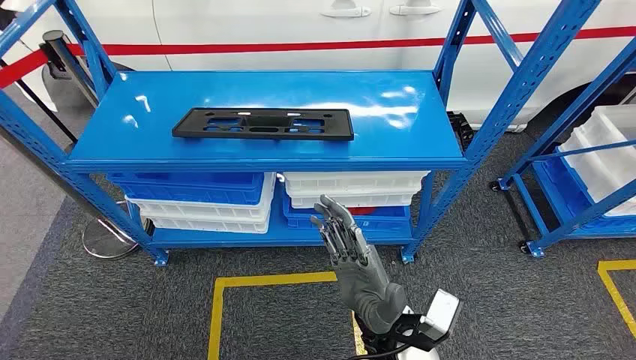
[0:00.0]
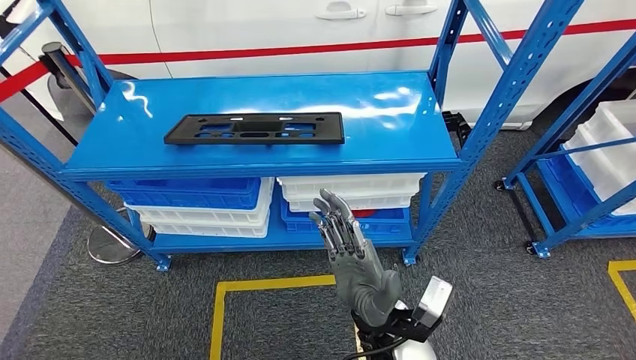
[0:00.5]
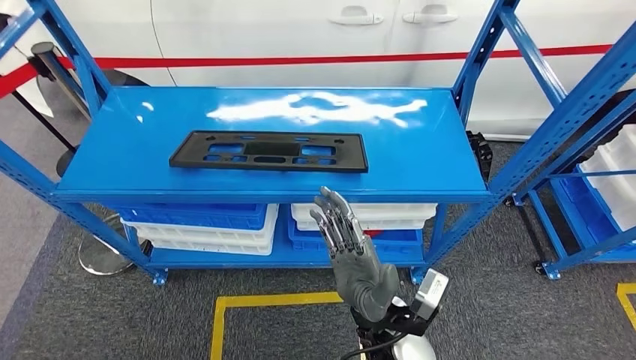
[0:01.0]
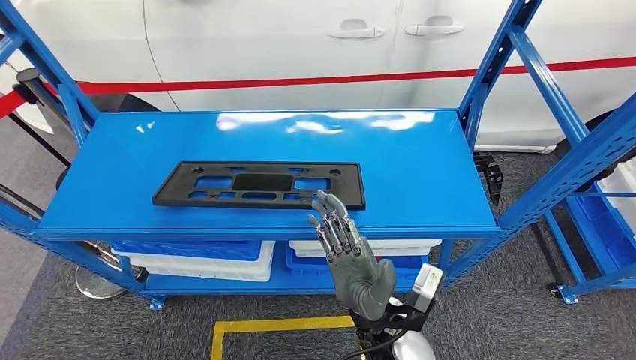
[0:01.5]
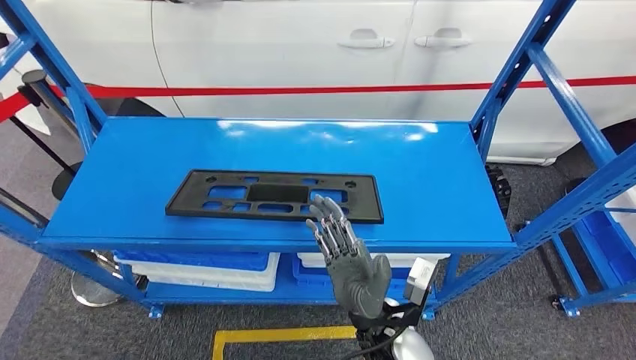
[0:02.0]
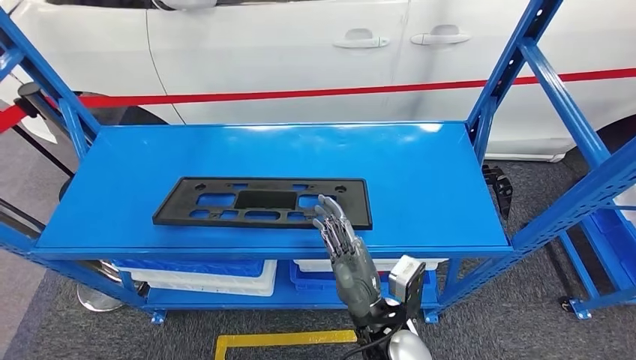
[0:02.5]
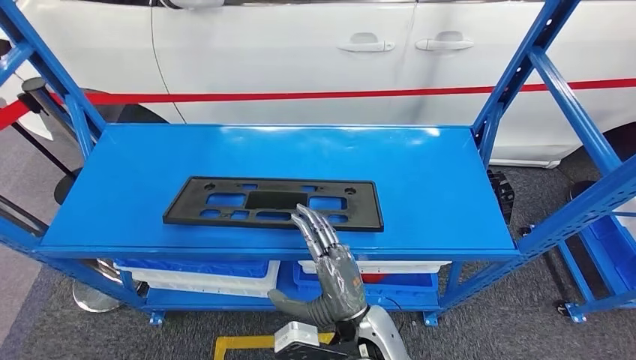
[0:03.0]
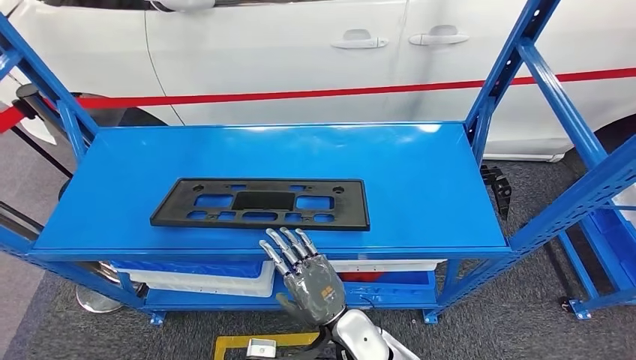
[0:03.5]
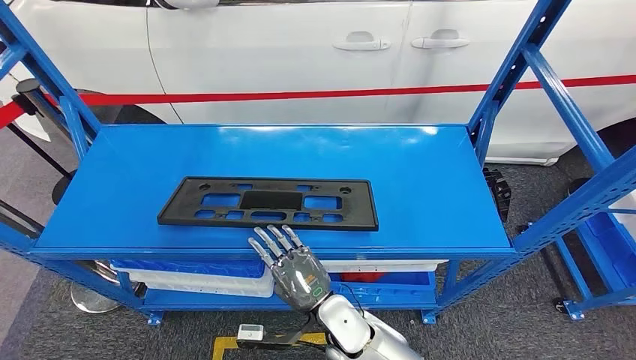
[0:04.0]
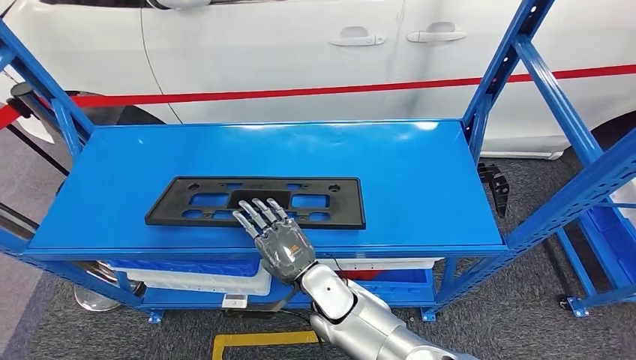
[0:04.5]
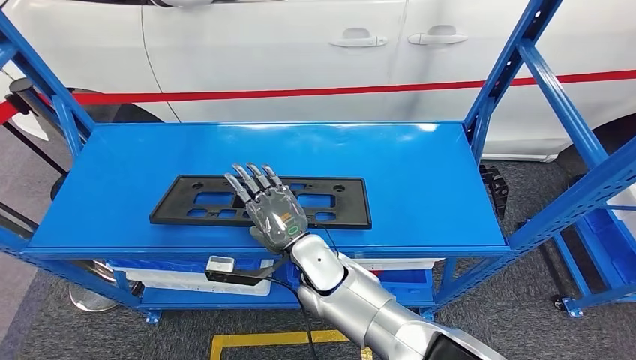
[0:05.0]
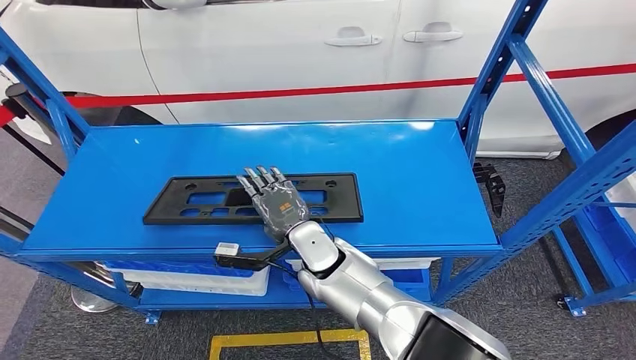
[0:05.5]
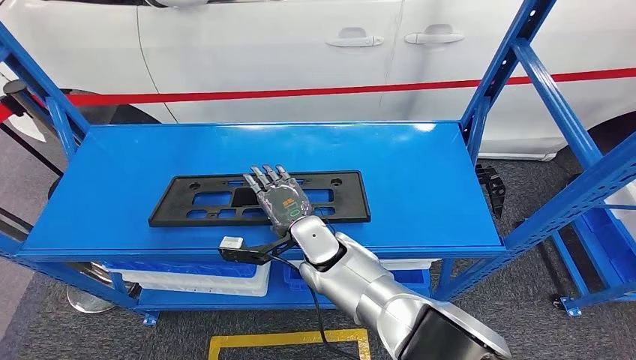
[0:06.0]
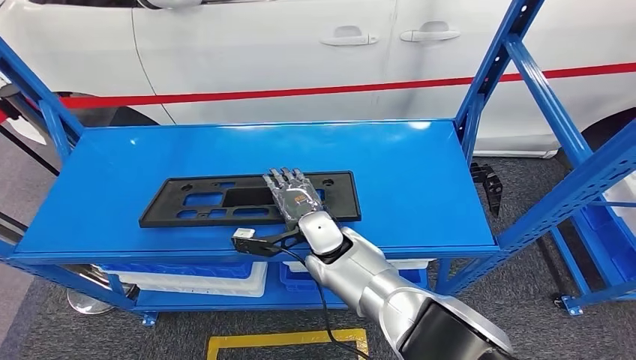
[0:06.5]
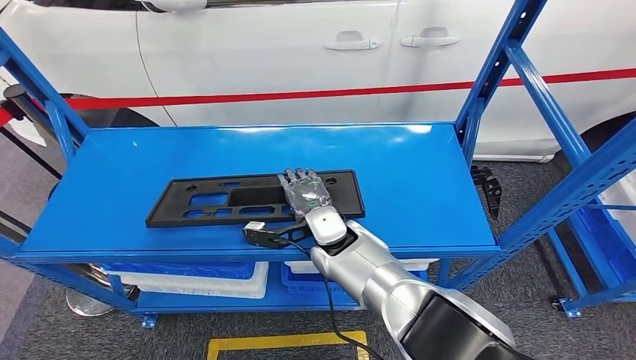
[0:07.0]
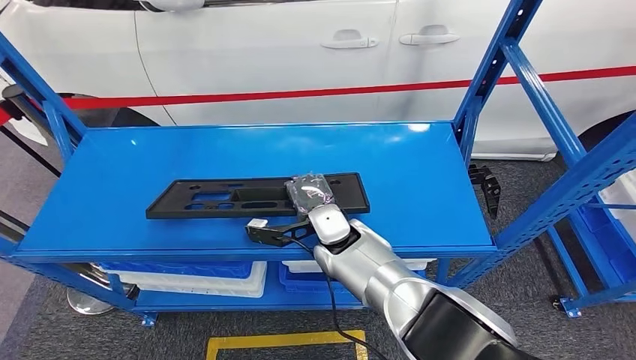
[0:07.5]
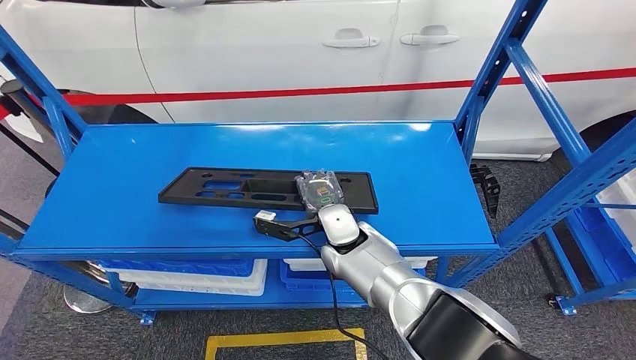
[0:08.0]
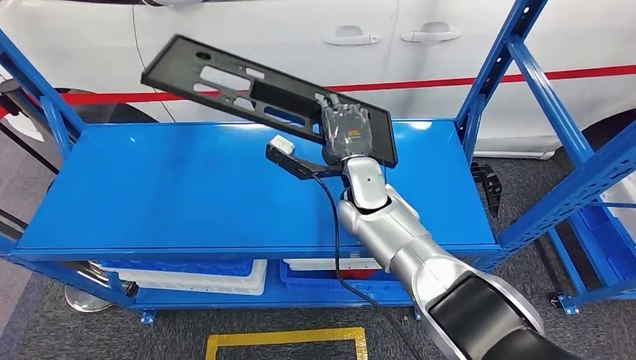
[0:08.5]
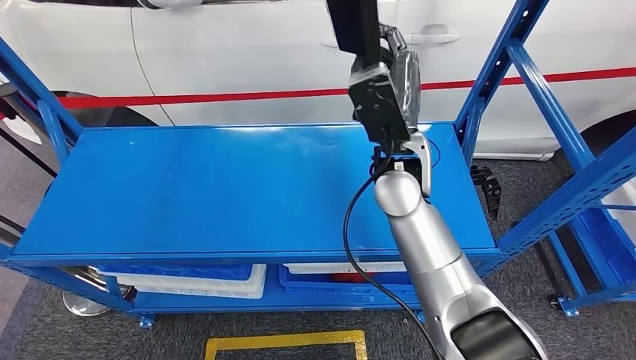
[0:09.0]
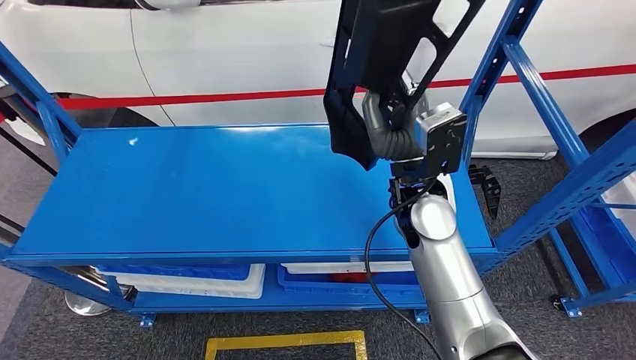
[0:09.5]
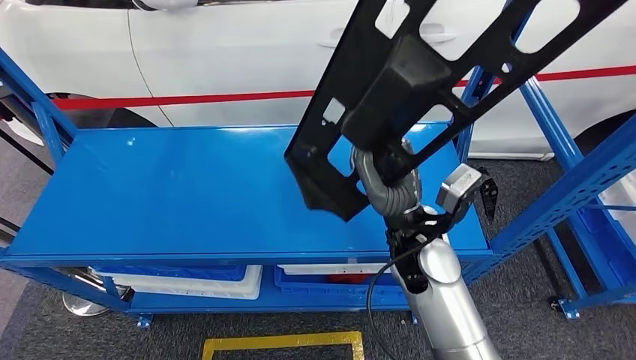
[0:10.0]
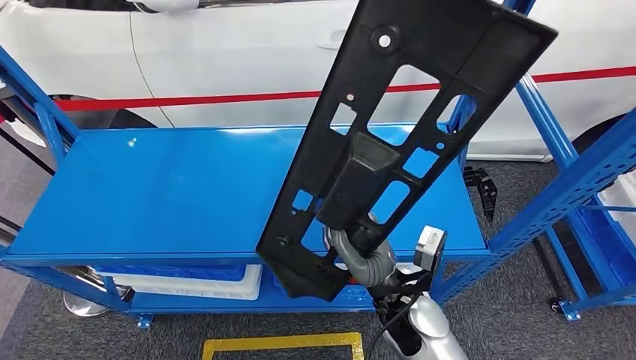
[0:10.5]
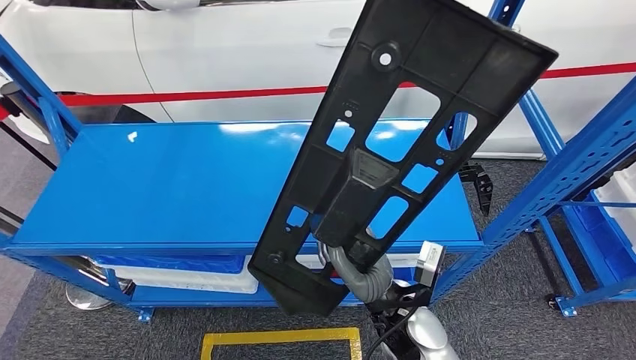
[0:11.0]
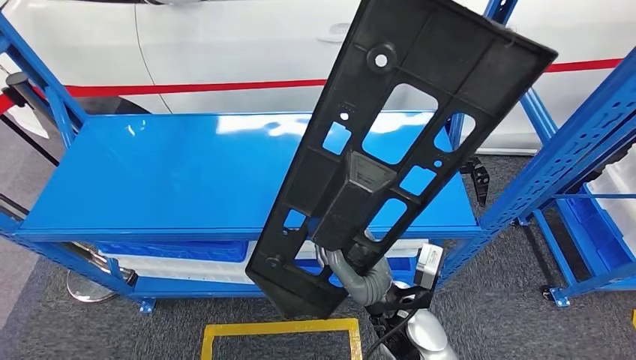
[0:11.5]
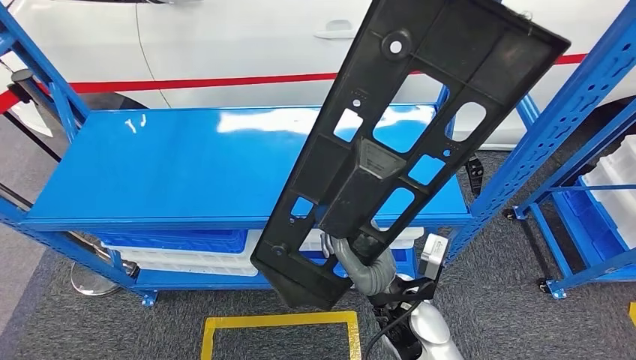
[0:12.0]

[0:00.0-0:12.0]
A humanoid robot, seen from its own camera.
Step, 0:00.0 to 0:10.0: Pick up the large material from the shelf.
0:06.0 to 0:08.0: The right hand ends up roughly 5 cm from where it was.

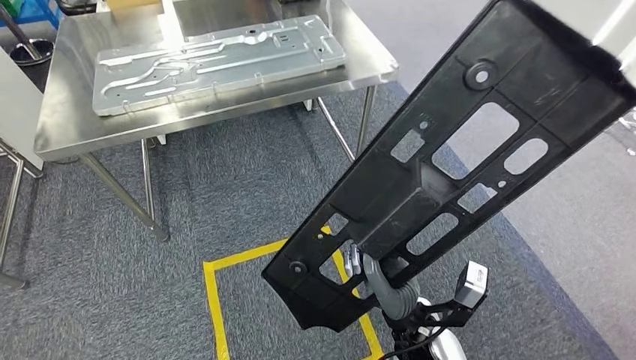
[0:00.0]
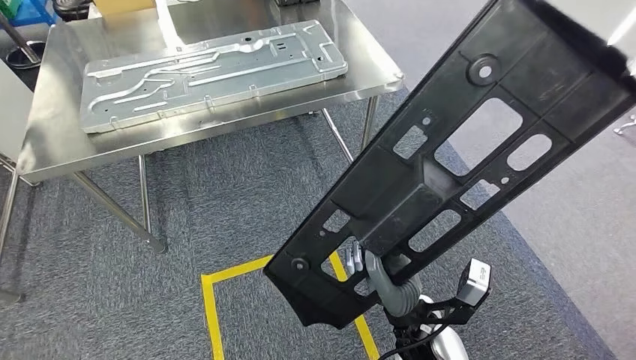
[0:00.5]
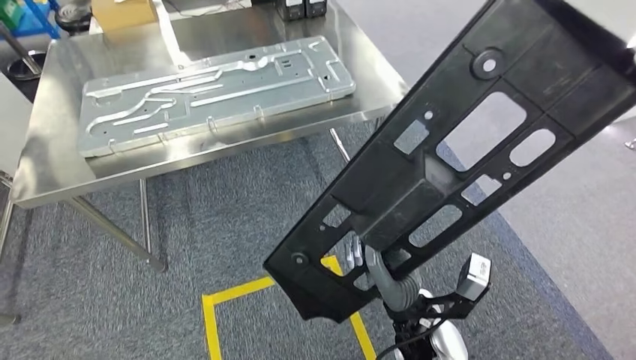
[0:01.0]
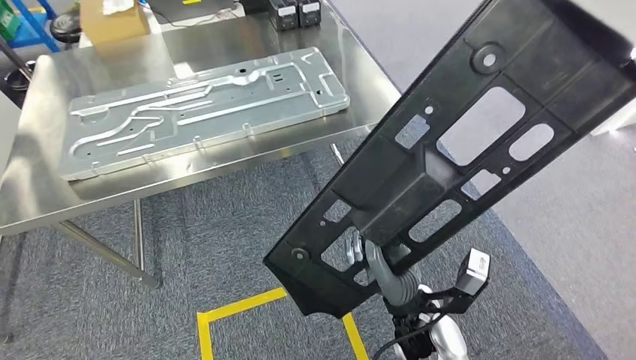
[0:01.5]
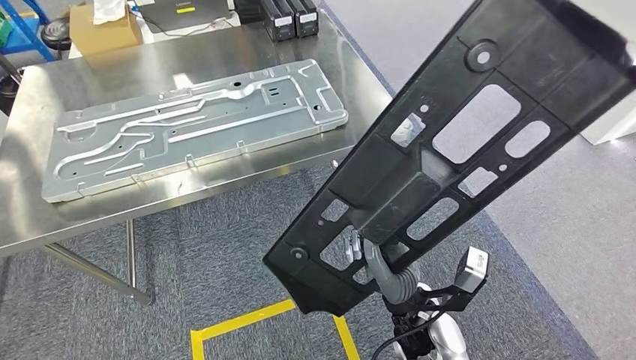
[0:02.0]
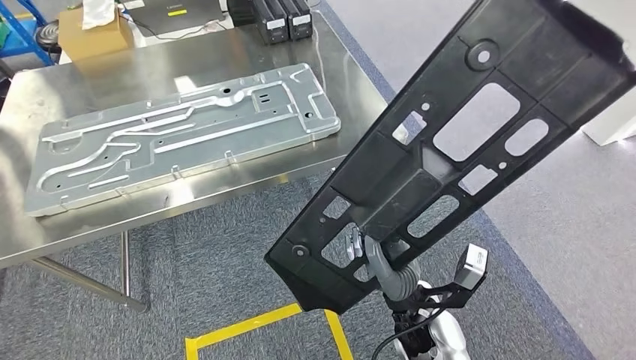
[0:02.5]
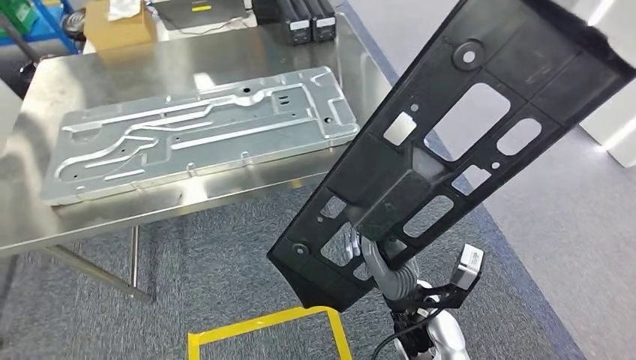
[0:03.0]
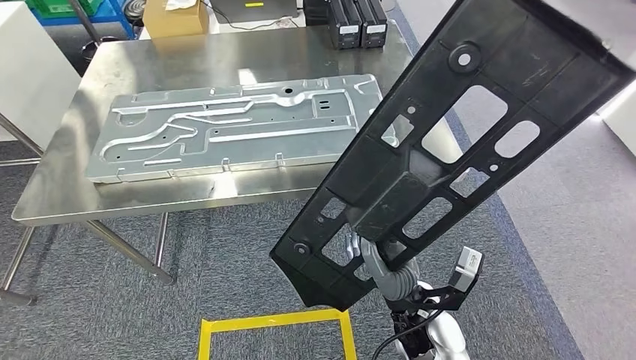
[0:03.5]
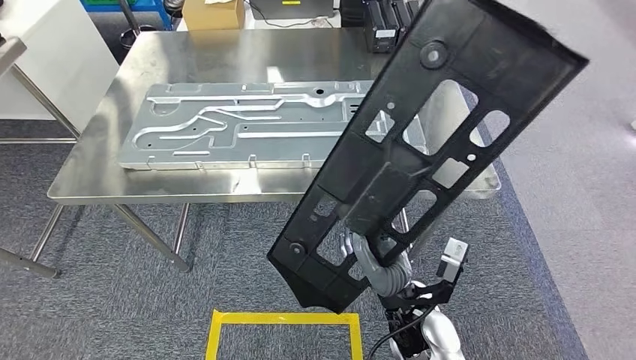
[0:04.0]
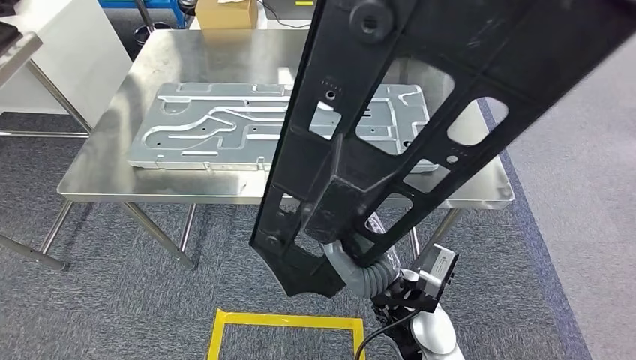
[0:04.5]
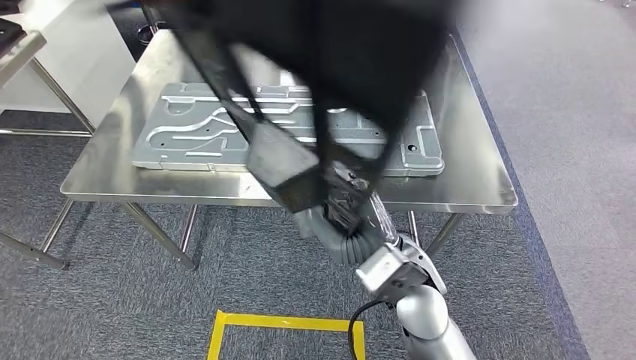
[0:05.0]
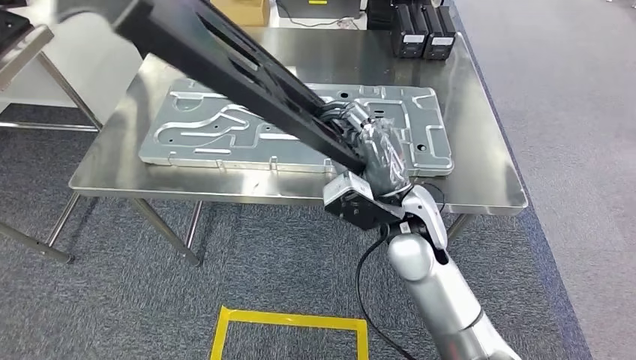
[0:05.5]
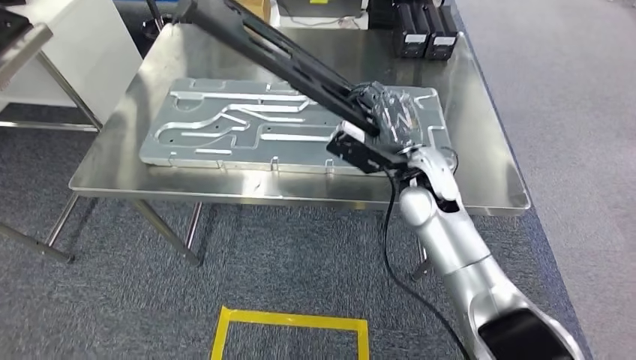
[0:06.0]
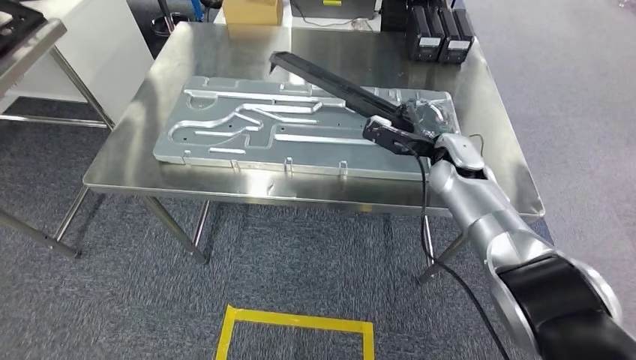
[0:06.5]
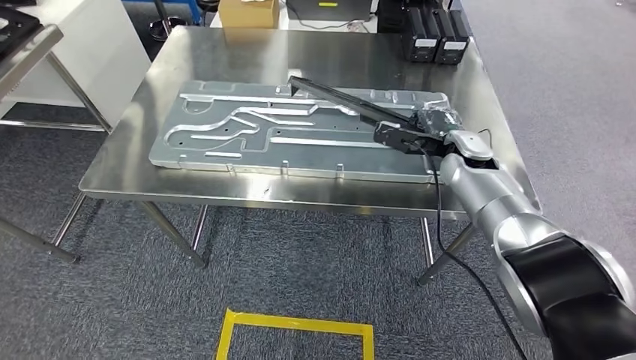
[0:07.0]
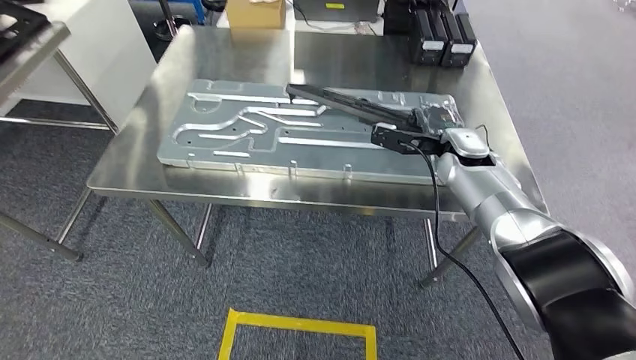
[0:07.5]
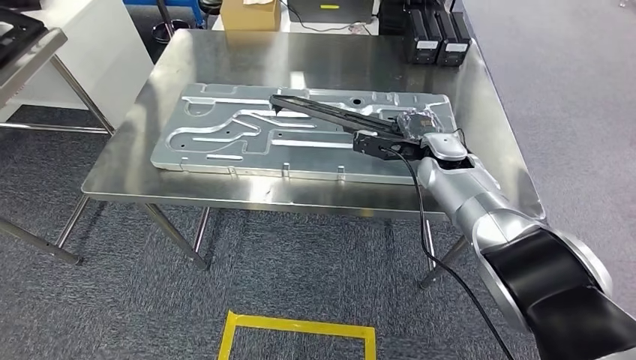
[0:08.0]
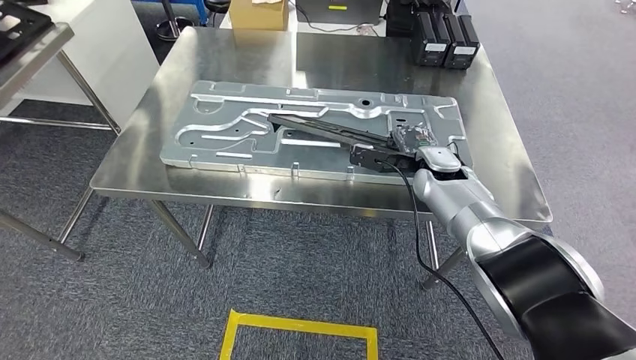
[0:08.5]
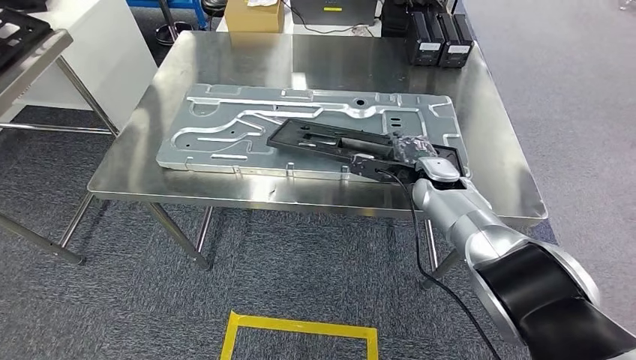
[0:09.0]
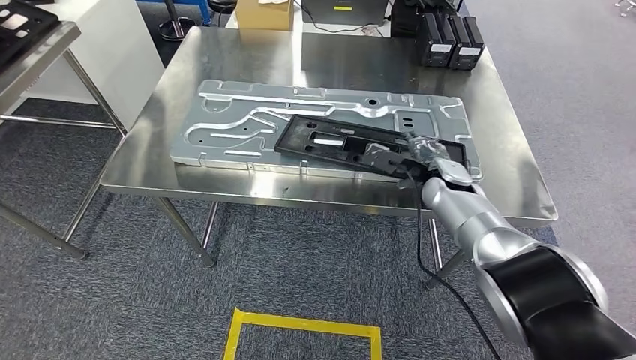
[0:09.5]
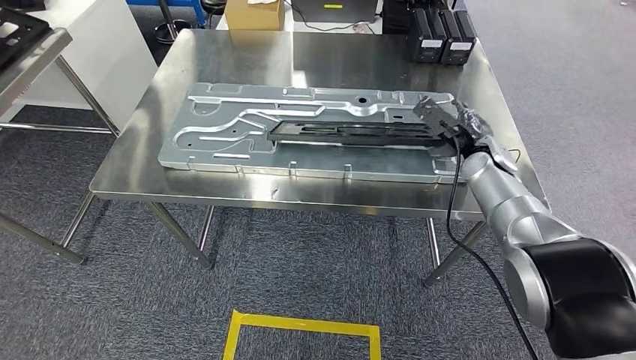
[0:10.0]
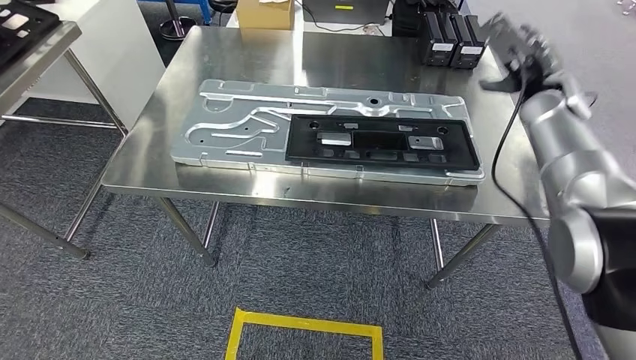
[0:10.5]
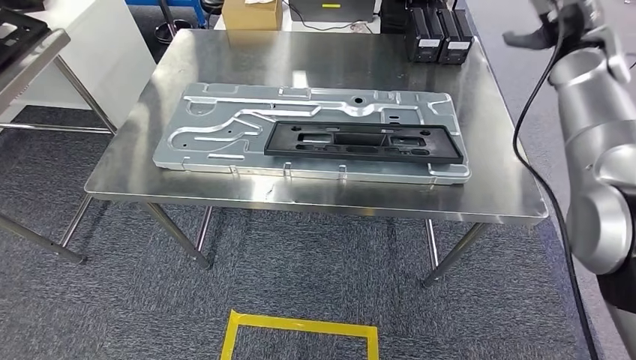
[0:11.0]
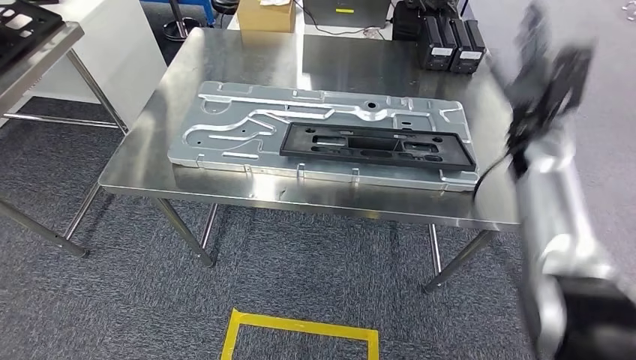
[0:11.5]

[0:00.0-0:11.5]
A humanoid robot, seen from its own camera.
Step, 0:00.0 to 0:04.5: Move the large material to the workbench.
